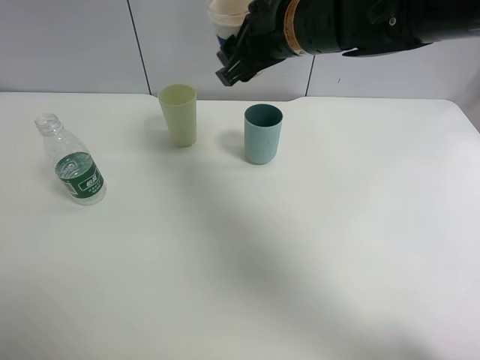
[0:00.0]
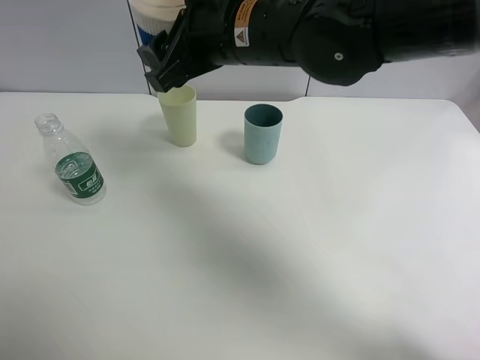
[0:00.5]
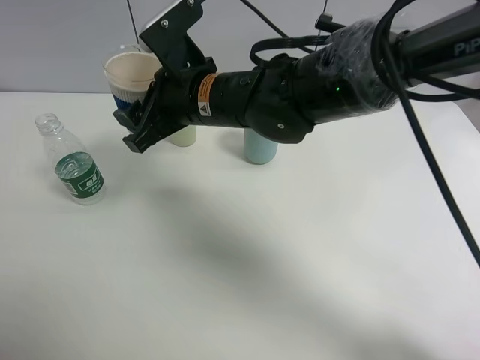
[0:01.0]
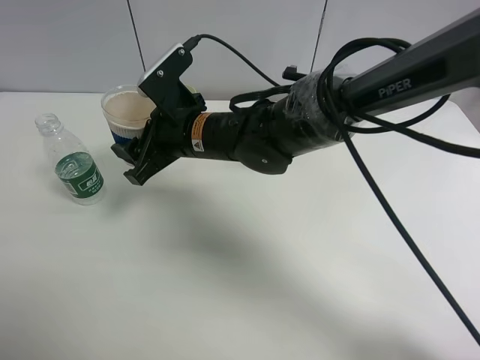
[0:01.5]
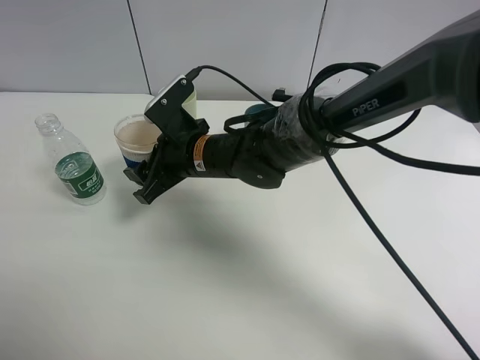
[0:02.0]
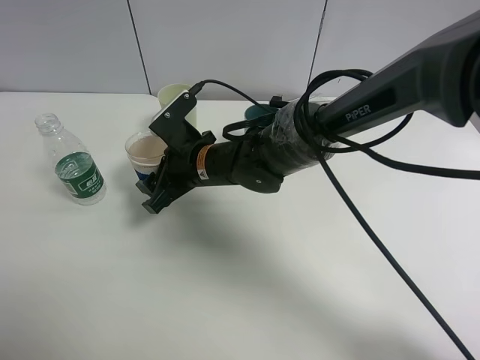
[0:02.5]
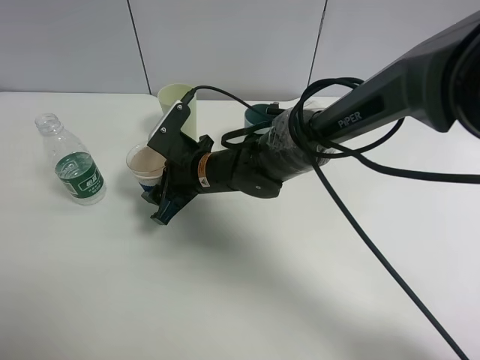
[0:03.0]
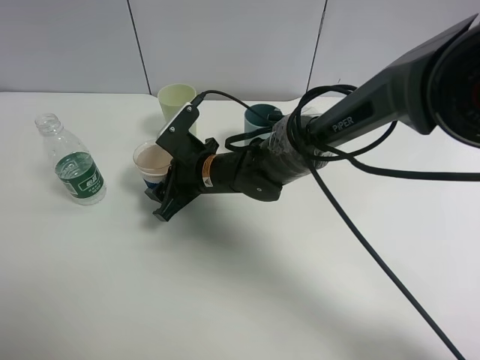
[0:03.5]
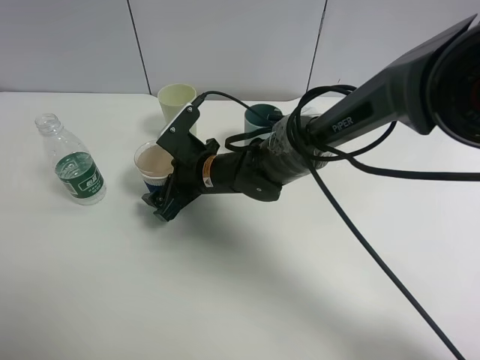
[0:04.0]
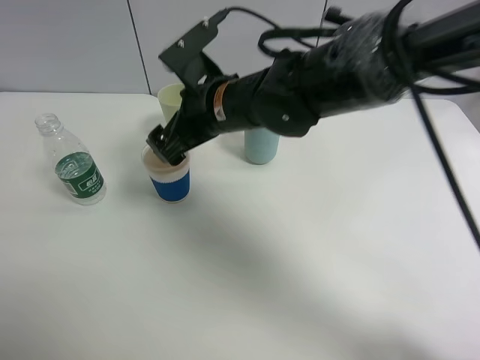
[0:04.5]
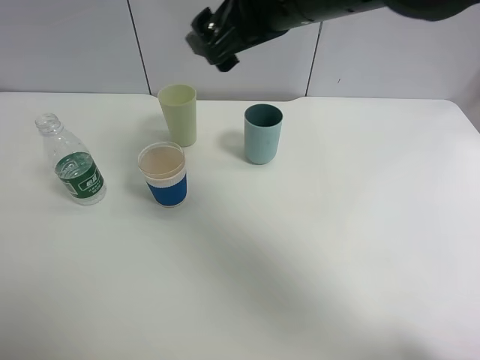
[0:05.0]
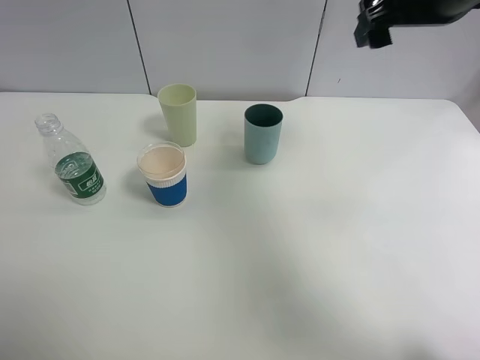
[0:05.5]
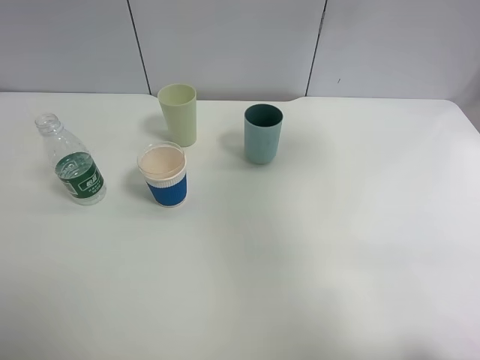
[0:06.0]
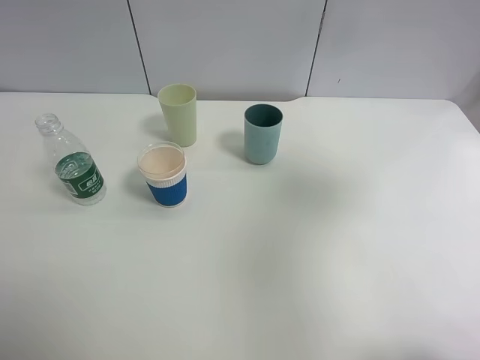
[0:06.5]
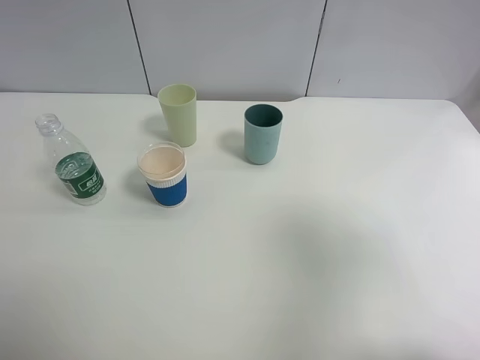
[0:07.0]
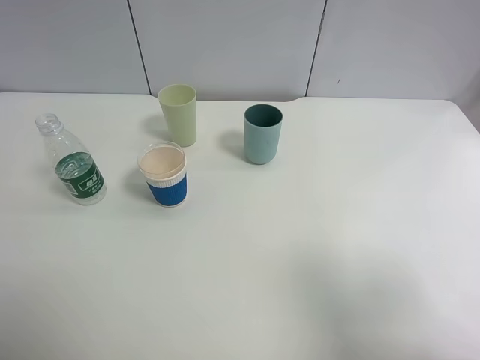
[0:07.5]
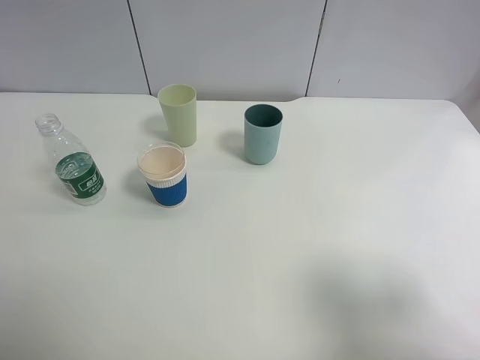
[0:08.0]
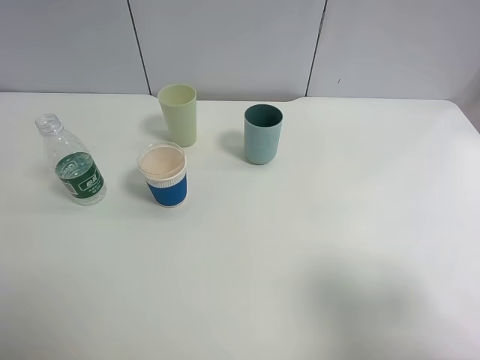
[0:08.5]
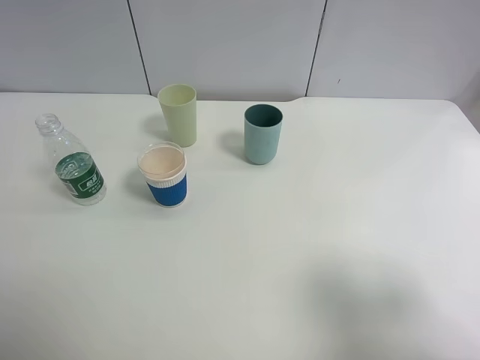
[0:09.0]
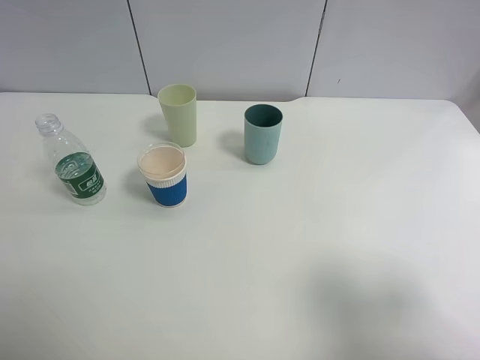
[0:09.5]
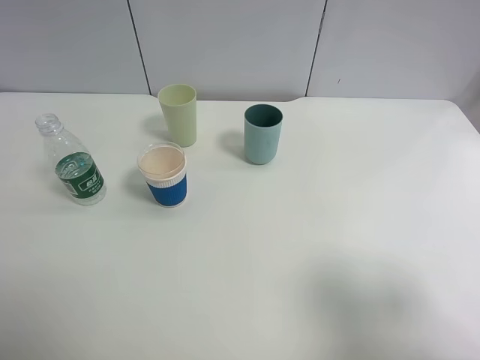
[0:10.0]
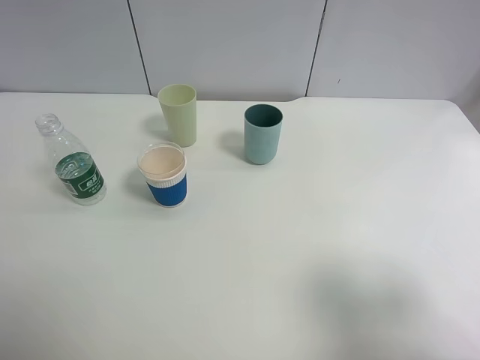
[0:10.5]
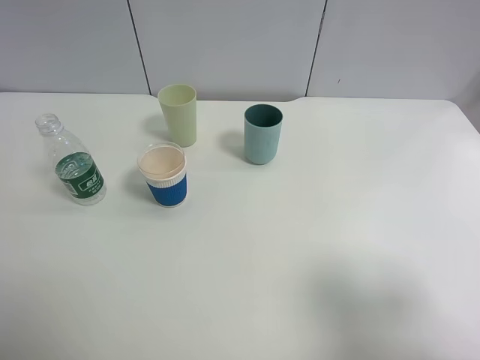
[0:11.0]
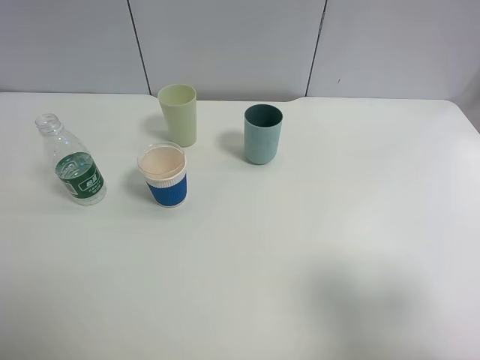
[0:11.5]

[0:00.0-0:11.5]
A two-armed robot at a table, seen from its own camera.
Task of the whole recording: use a clamp to hold the bottle of the drink, pour the beverage into a random cup, then clamp the cup containing the drink and pour the drink into another random cup.
Step, 0:00.0 to 0:04.5: Place the paper cup on the table with right gripper.
0:00.0 to 0:02.0: The right gripper shifts approximately 20 cm downward and to the left.
0:02.0 to 0:04.0: The right gripper opens its fingers.
0:04.0 to 0:06.0: The right gripper moves upward and to the right, some 50 cm.
0:06.0 to 0:07.5: The right gripper moves backward, approximately 25 cm.
0:09.5 to 0:11.5: Both grippers stay about where they are.
